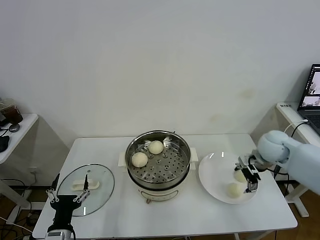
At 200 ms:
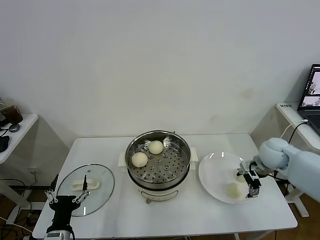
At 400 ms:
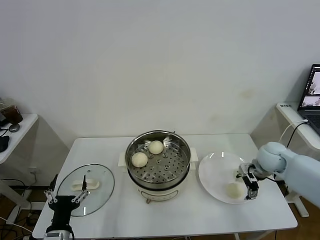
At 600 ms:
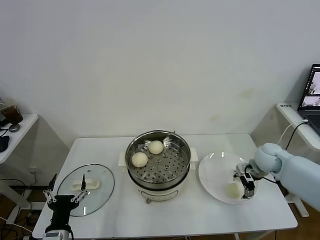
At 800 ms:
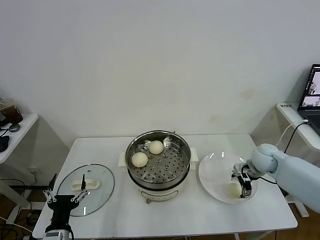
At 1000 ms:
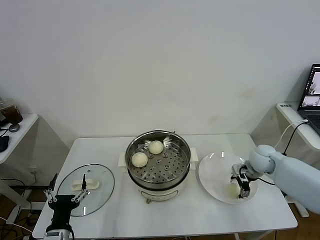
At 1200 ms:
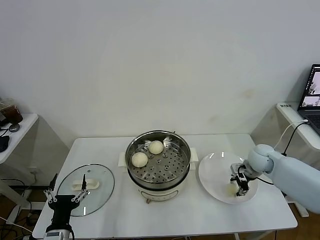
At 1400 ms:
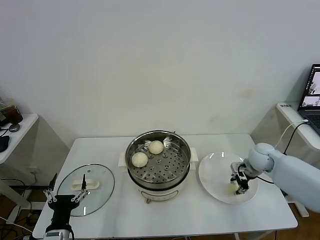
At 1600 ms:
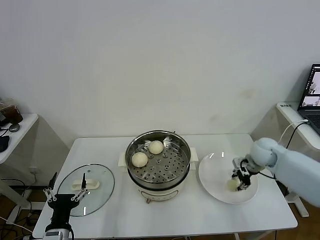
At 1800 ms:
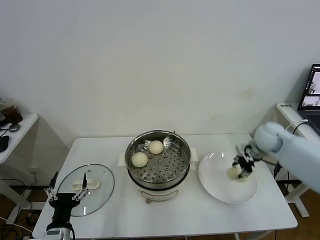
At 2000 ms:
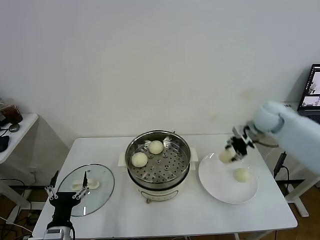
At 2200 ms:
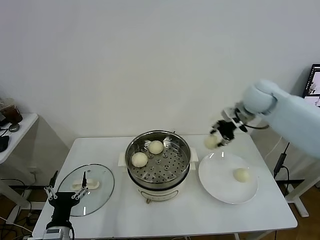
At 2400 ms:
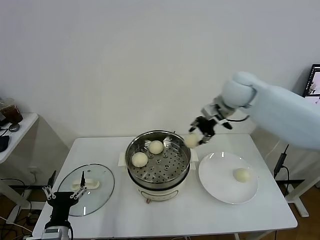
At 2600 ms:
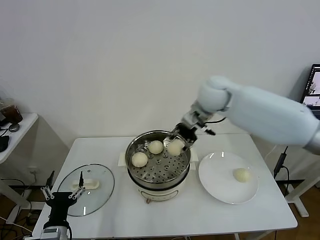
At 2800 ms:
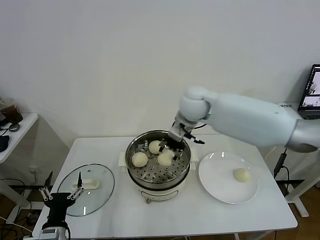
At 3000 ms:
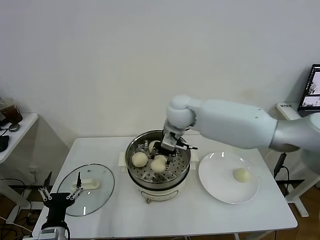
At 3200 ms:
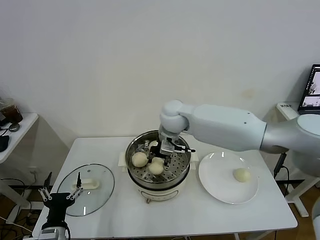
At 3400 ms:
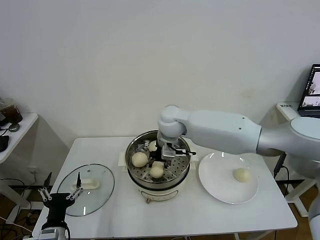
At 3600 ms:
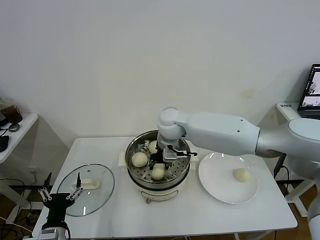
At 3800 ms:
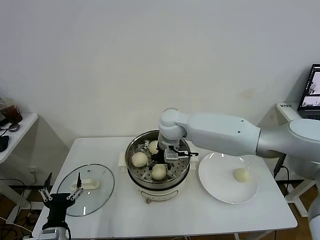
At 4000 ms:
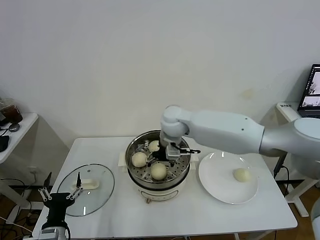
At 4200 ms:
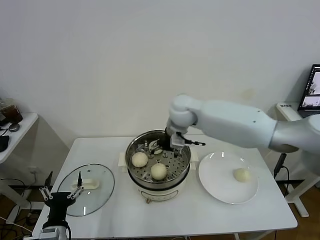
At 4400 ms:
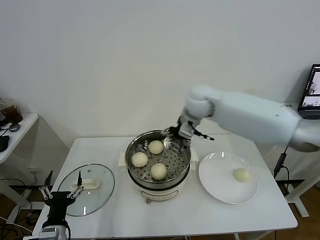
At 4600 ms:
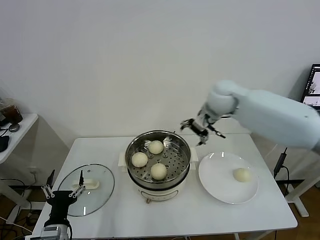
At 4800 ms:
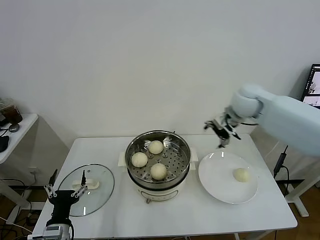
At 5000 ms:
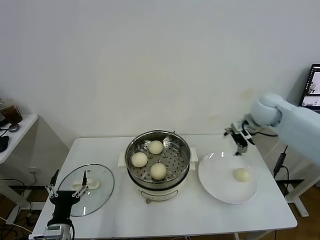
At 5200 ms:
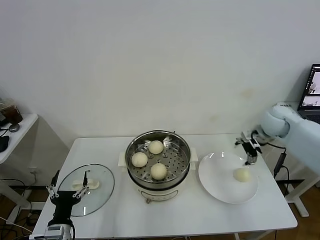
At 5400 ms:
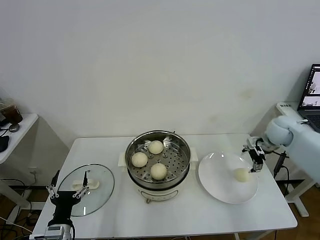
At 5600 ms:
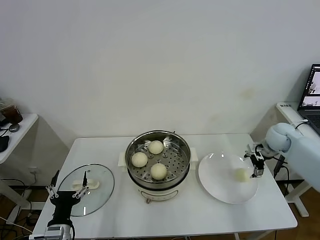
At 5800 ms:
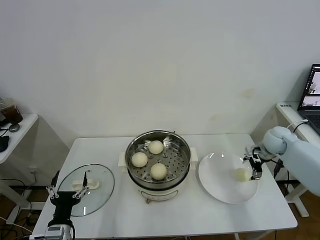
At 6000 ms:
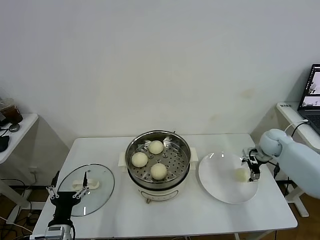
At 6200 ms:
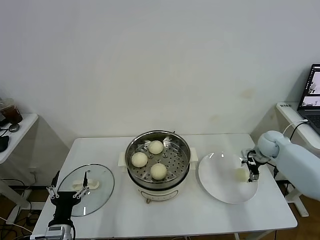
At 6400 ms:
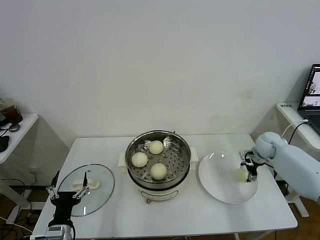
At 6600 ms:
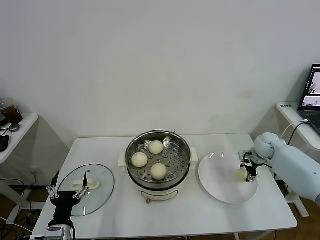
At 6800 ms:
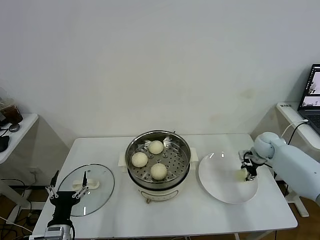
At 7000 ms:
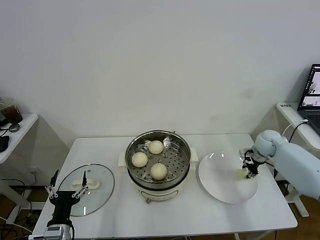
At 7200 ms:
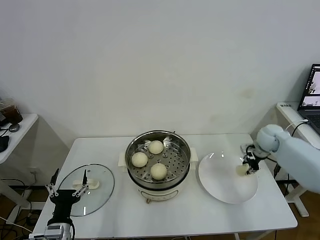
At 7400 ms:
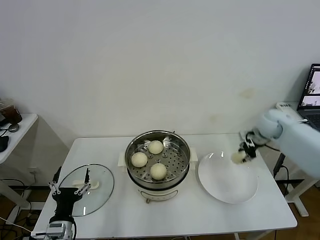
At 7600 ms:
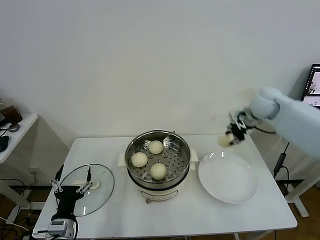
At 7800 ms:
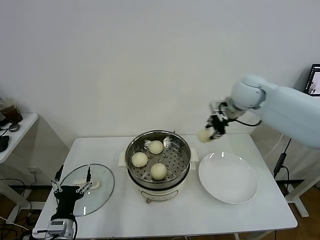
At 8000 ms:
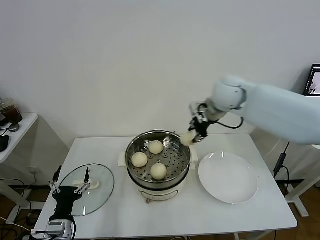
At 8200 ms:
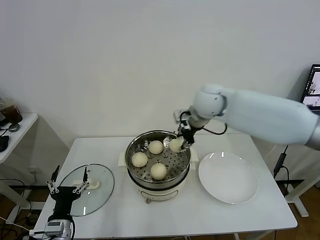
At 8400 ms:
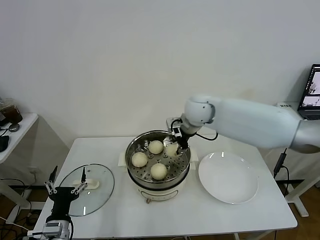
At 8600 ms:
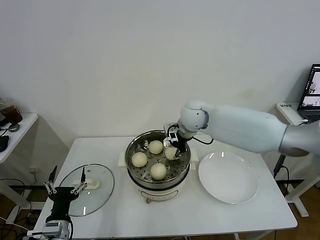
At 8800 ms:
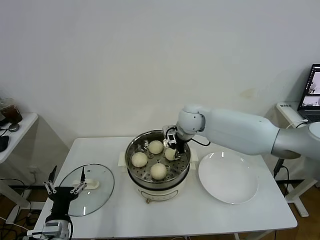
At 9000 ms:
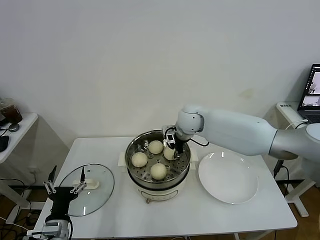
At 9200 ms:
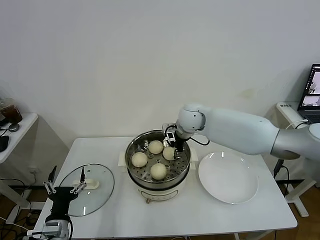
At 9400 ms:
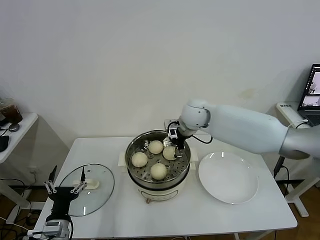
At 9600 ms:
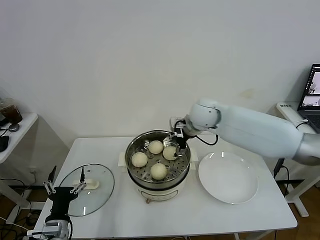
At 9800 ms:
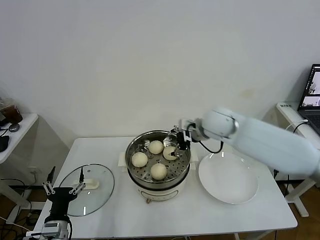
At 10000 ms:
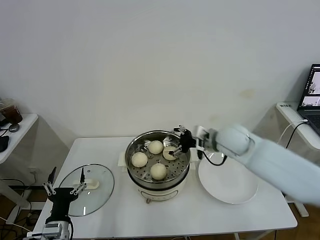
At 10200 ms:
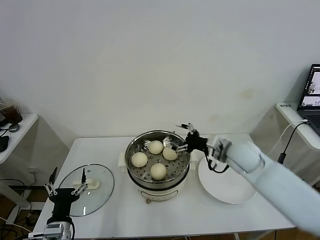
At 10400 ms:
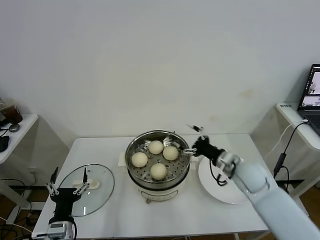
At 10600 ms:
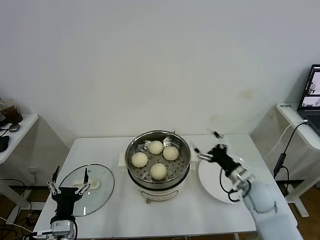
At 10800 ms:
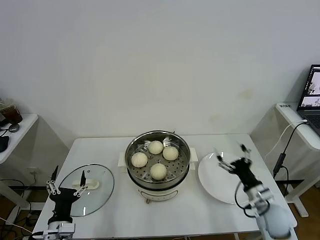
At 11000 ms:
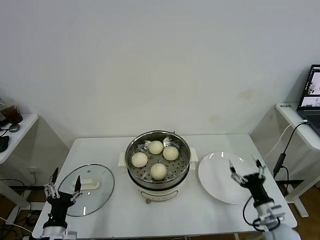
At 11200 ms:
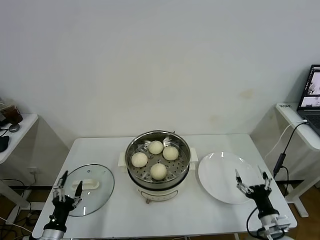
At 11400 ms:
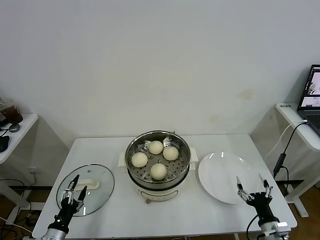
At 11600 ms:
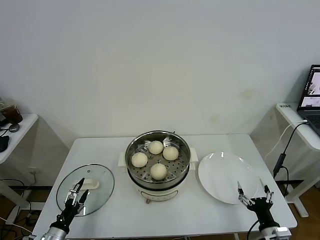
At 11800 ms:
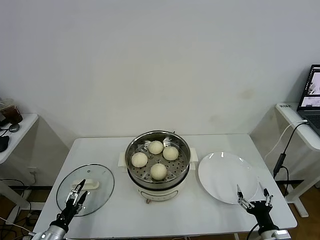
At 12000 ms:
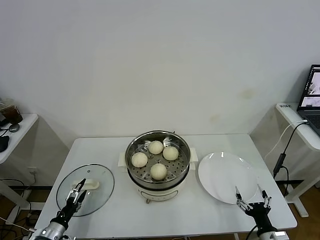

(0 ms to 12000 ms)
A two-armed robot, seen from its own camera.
Task of the whole recording: take steamed baozi put them in steamer.
Step, 0 ms - 1400 ms: Grasp the baozi in the plate with right gripper.
Step, 1600 ms - 4000 ms: Place the baozi on the steamer with right gripper.
Step, 4200 ms - 6800 ms: Grasp the baozi in the plate with right gripper.
Step, 7000 ms - 9200 ms: Place the baozi on the steamer with right gripper.
0 ms - 1600 ms: The right gripper is displaced downward by roughly 5 cm, and closes its fingers.
1600 ms - 3000 ms: The right gripper is displaced to the left and upward by about 35 cm.
3000 ms - 4400 ms: The right gripper is displaced to the right by about 5 cm, and opens.
4400 ms - 6000 ms: The right gripper goes about 35 cm to the right and downward.
6000 ms - 7600 ms: The right gripper shifts about 15 cm upward and to the left, and closes.
7600 ms - 9000 ms: The right gripper shifts about 25 cm to the left.
9000 ms - 10400 ms: The right gripper heads to the right, backward and downward, covering about 25 cm, and opens.
10400 ms - 12000 ms: The right gripper moves backward, downward and to the right, roughly 30 cm, while the left gripper goes roughly 15 cm to the left and downward.

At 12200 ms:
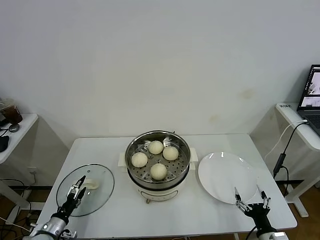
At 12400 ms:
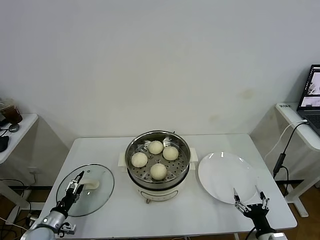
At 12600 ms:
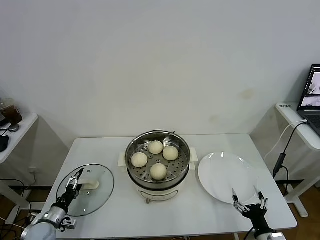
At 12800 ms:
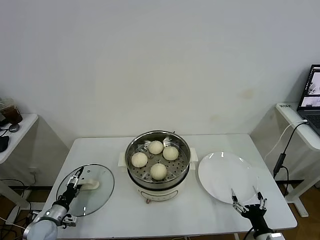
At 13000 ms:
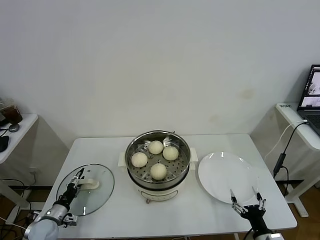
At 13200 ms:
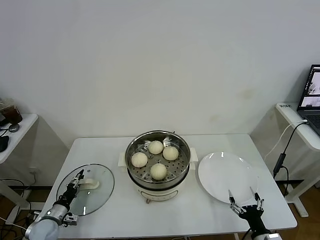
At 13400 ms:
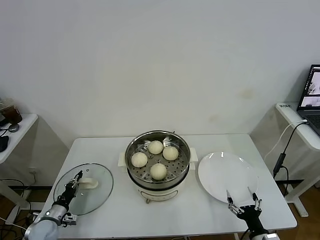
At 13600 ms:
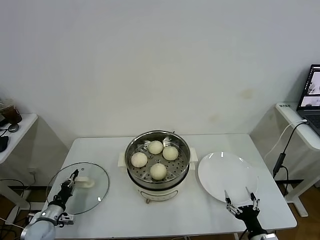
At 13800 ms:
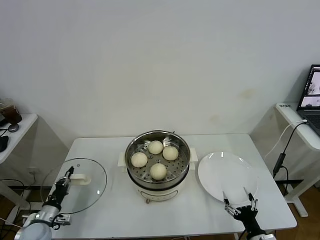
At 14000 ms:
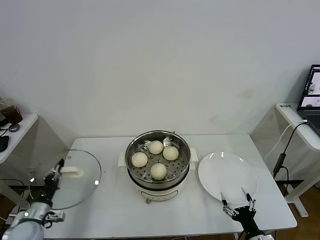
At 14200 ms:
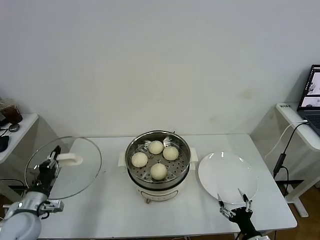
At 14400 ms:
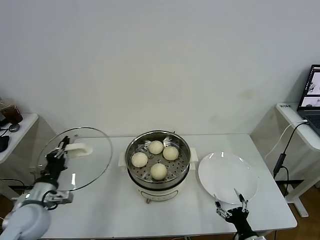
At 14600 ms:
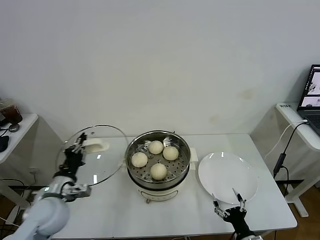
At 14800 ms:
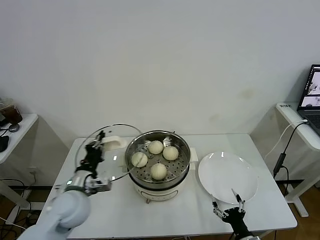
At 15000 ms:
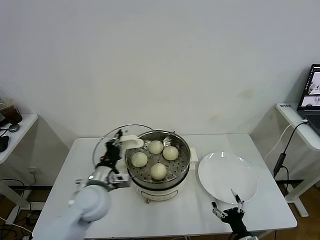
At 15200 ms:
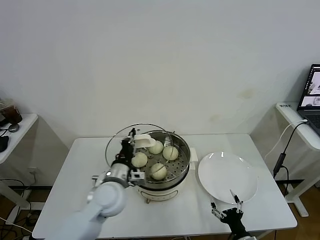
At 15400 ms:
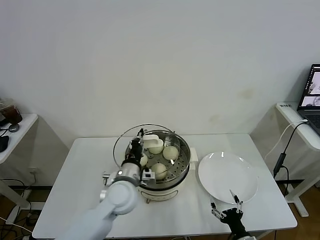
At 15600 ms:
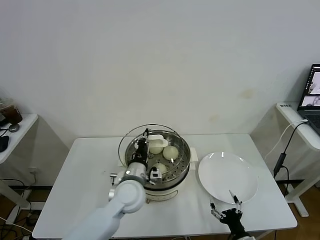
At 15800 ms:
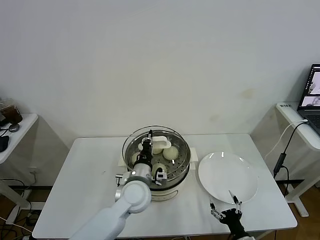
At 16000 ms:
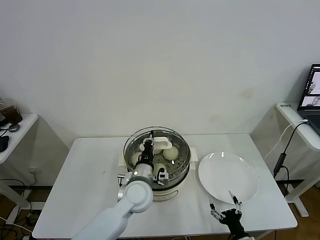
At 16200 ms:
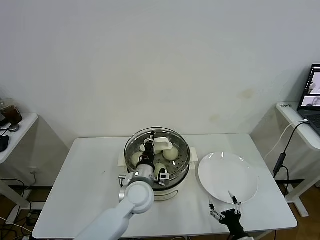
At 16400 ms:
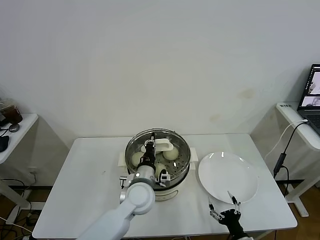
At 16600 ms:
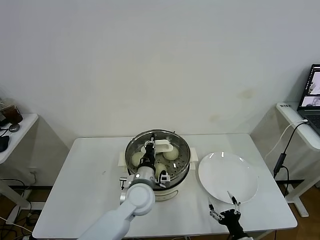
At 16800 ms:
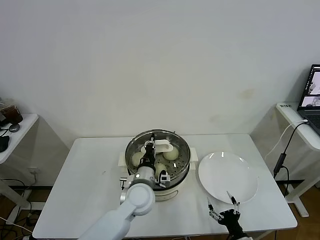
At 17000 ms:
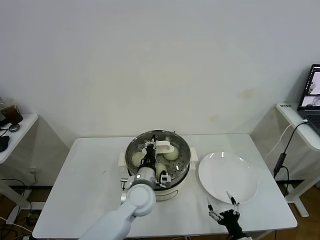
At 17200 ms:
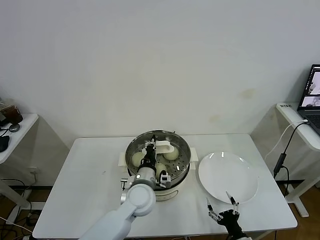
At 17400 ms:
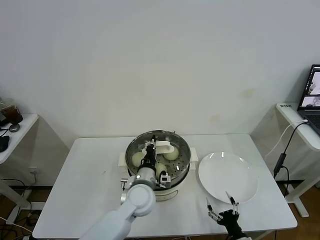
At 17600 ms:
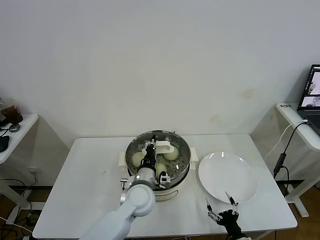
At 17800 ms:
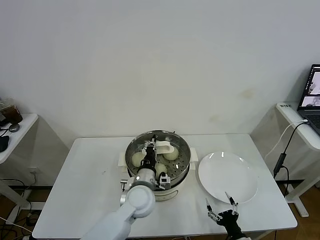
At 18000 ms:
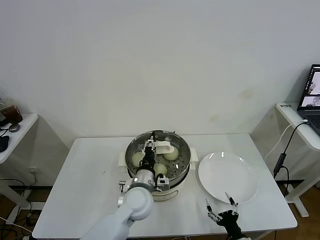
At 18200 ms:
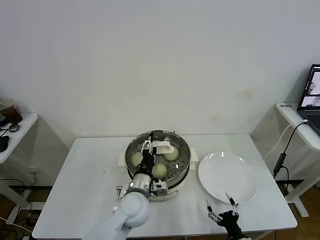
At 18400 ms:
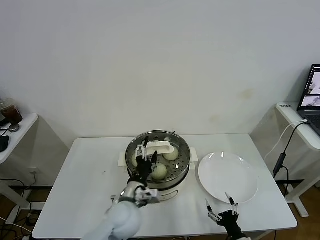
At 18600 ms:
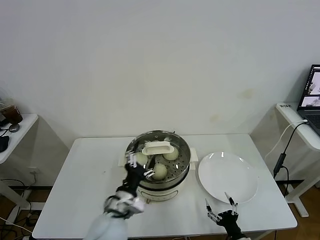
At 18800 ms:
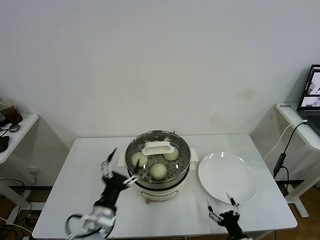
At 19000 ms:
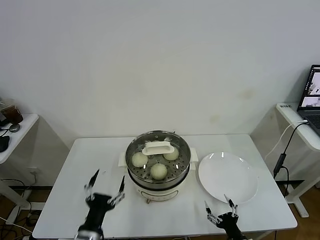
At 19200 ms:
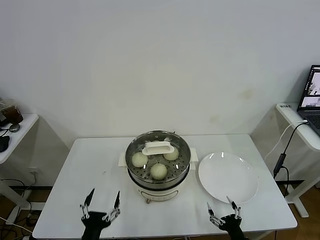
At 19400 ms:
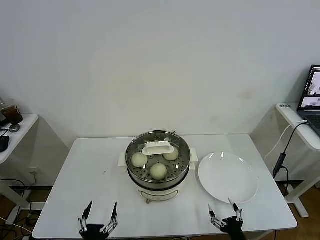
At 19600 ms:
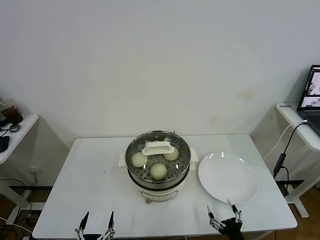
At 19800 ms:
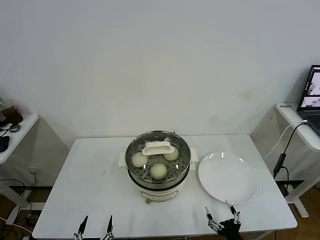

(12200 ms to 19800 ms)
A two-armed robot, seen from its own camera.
Task of the whole recording: take steamed baozi put them in steamer.
Step, 13800 ms - 18200 ms: Place the pot lid on the steamer with left gripper.
12200 ms - 13800 ms: The left gripper shifts by roughly 5 cm, and closes up.
13800 ms - 15200 ms: The left gripper heads to the right and upward, covering approximately 35 cm.
15200 ms - 16800 ms: The left gripper heads to the right, covering approximately 10 cm.
16800 ms - 18200 ms: The left gripper opens up.
18200 ms - 19800 ms: The right gripper ends up roughly 5 cm from where it was. Meanwhile the left gripper shifts about 30 cm backward and to the left, and opens.
